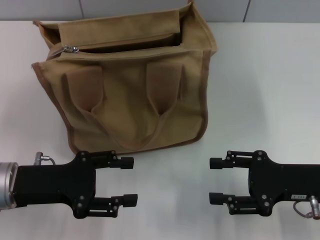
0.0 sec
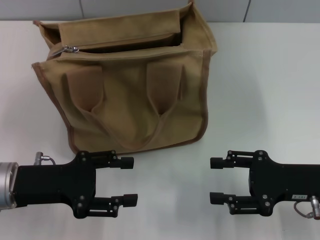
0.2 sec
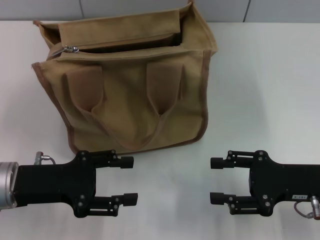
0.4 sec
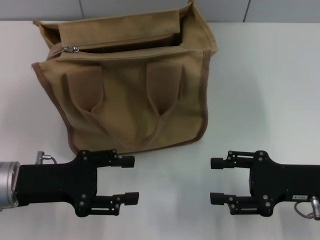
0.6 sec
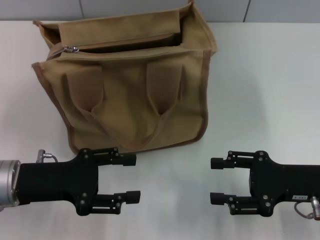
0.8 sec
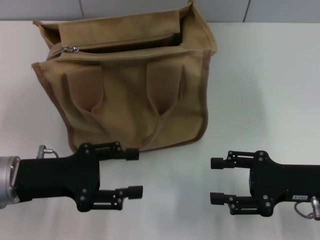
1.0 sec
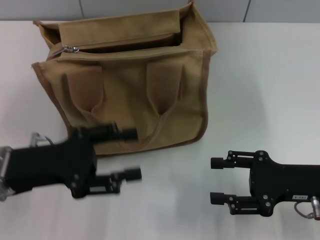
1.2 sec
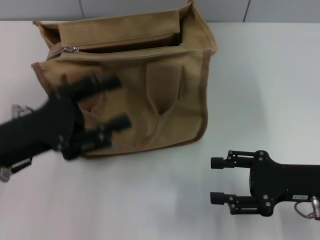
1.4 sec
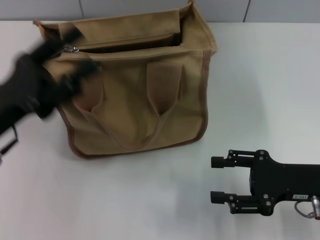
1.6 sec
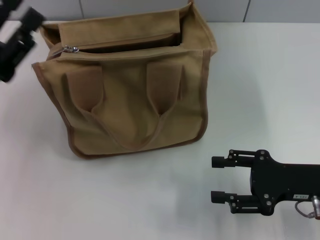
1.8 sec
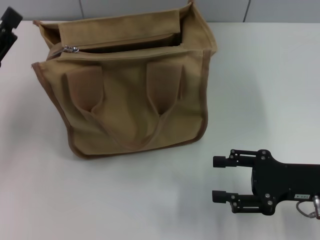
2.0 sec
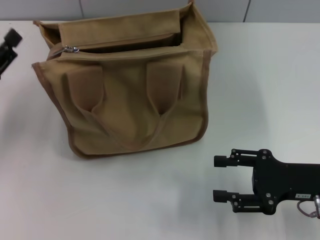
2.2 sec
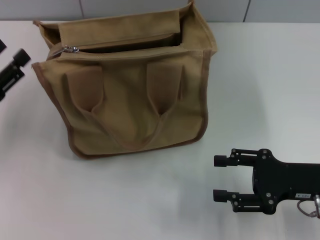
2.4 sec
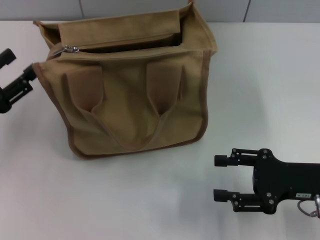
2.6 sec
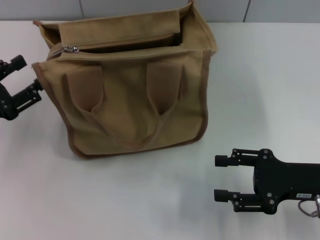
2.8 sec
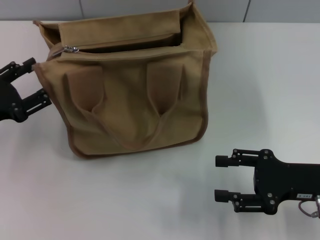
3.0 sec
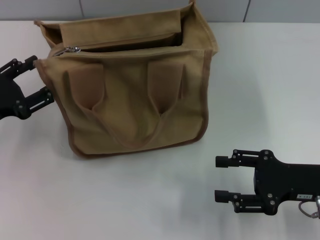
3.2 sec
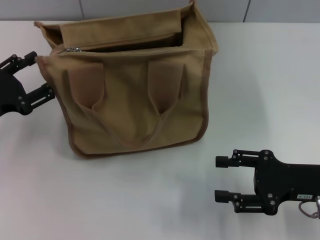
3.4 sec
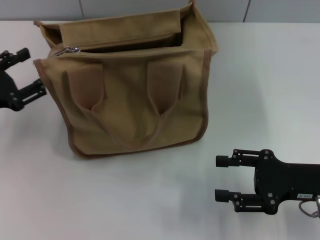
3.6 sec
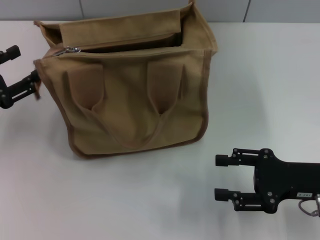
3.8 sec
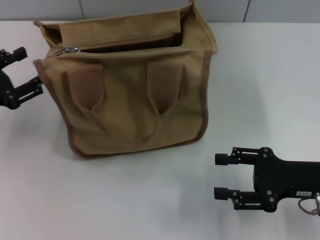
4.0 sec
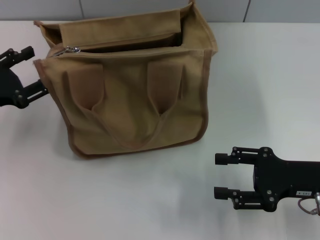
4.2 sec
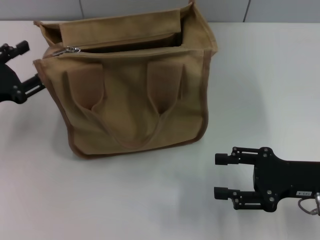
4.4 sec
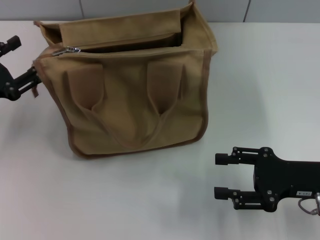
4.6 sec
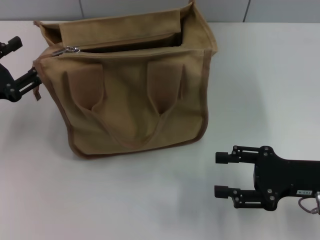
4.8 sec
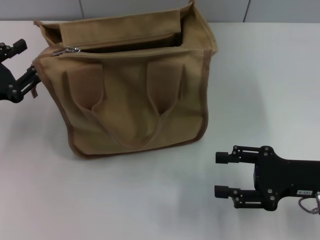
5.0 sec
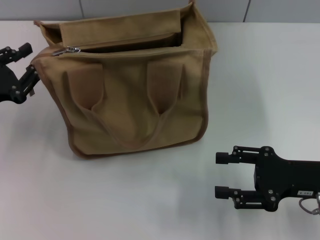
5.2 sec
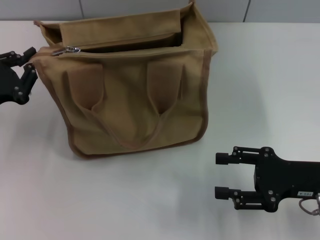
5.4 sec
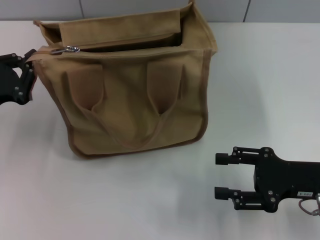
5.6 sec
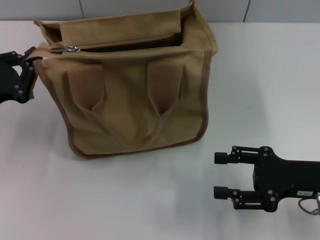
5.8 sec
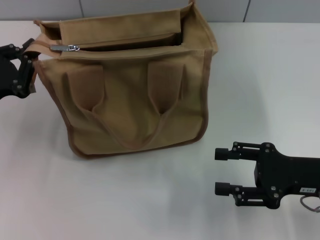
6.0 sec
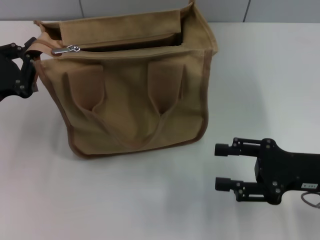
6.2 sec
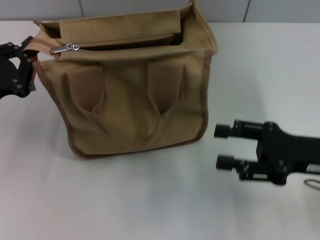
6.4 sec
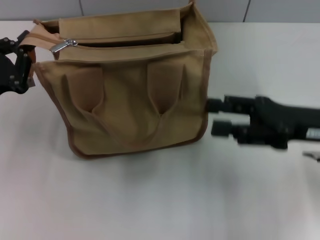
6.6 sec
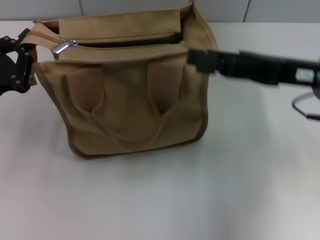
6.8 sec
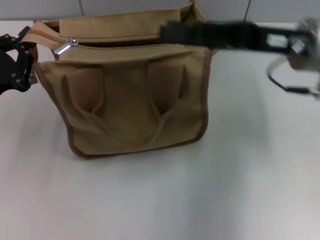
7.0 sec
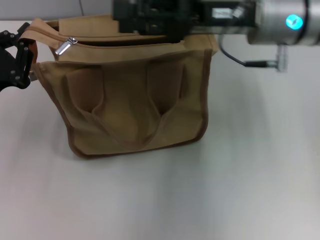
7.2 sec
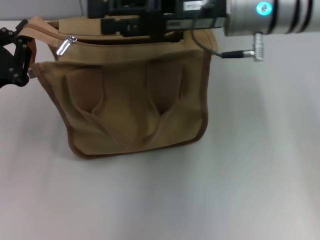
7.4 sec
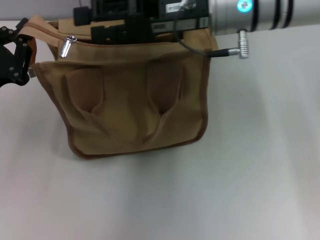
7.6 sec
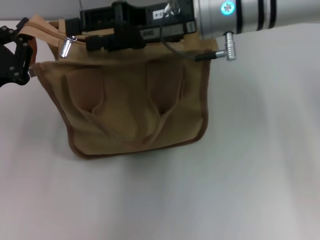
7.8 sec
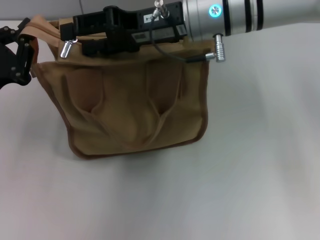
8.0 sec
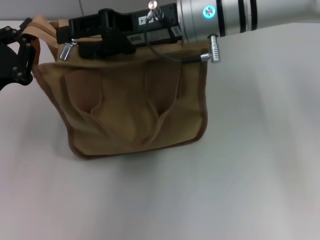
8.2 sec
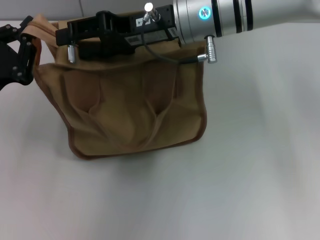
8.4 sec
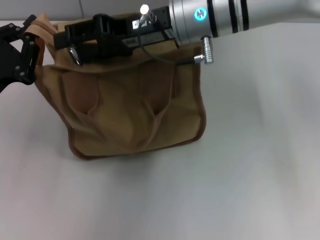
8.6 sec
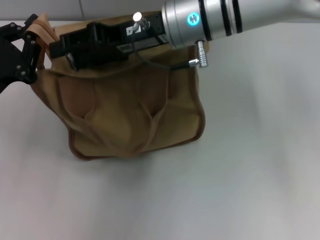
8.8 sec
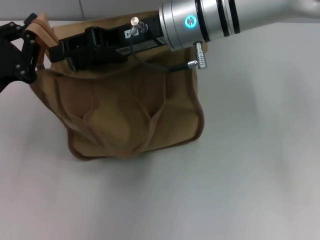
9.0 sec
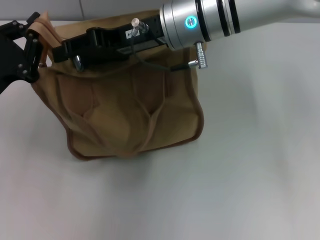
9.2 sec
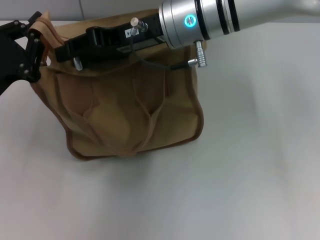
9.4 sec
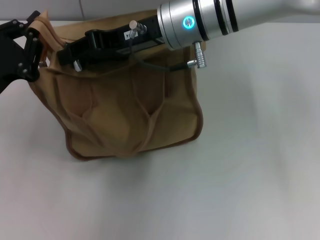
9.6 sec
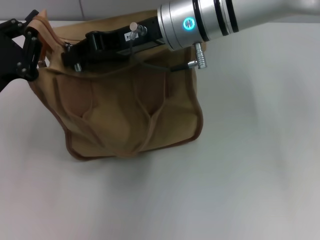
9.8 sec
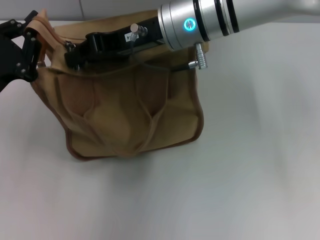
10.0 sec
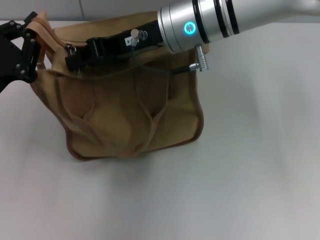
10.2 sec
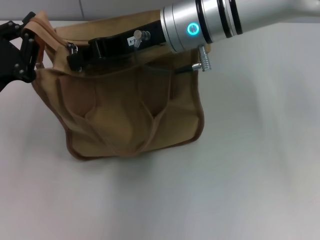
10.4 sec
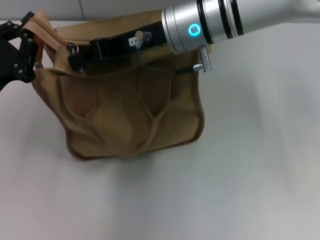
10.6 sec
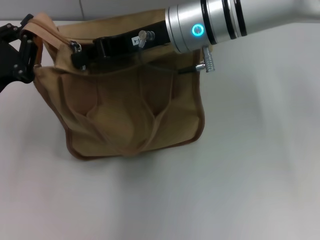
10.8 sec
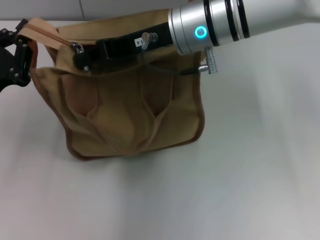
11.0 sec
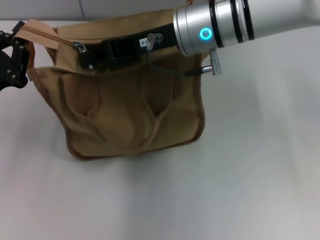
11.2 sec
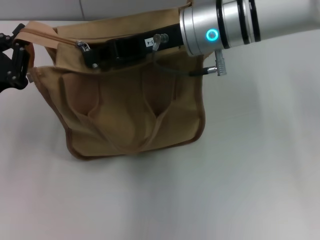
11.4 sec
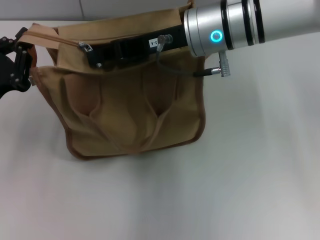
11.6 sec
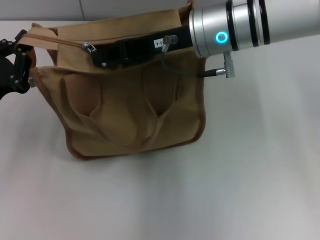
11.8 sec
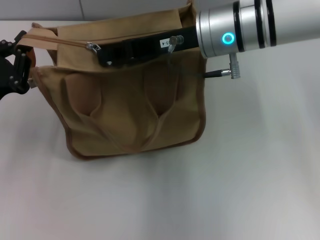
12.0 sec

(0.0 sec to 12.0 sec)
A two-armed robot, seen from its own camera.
1.6 sec - 3.0 sec: The left gripper heads to the left, covering approximately 5 cm.
3.0 sec - 4.4 sec: The grippers move only a little.
4.4 sec - 6.0 sec: The left gripper closes.
6.0 sec - 7.6 sec: The right gripper goes roughly 25 cm to the left, forward and upward.
7.6 sec - 9.0 sec: The grippers stay close to where they were, moving slightly.
9.0 sec - 10.4 sec: The right gripper closes.

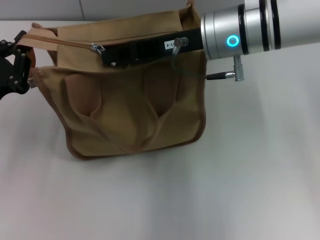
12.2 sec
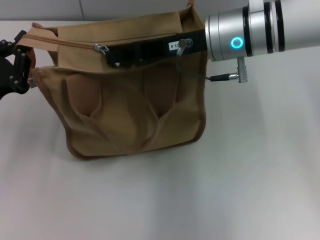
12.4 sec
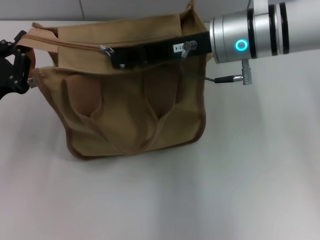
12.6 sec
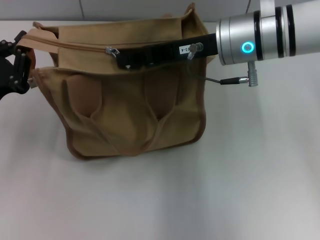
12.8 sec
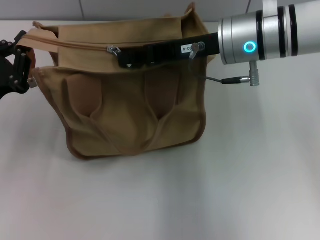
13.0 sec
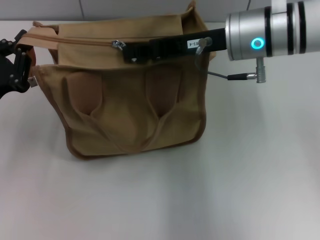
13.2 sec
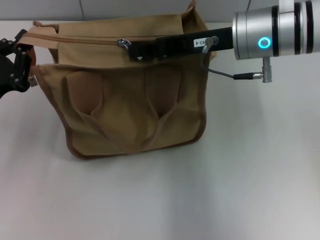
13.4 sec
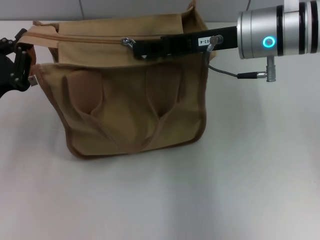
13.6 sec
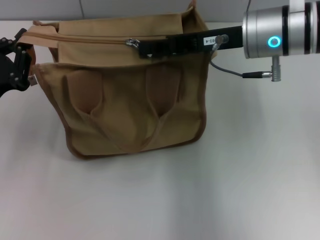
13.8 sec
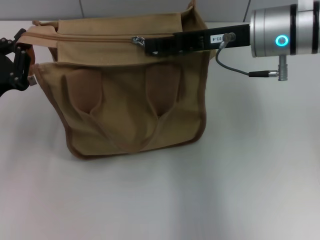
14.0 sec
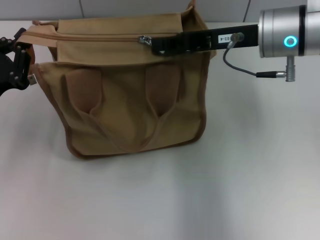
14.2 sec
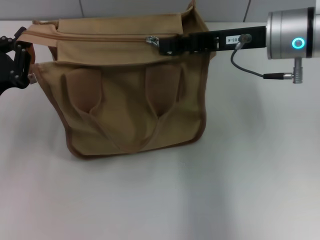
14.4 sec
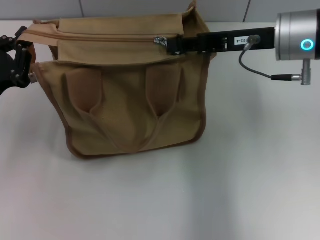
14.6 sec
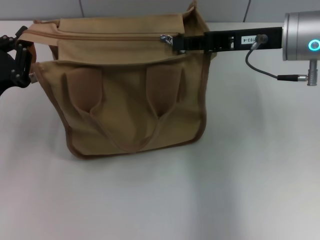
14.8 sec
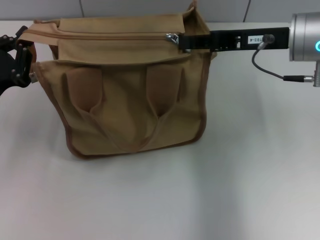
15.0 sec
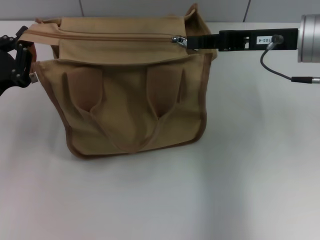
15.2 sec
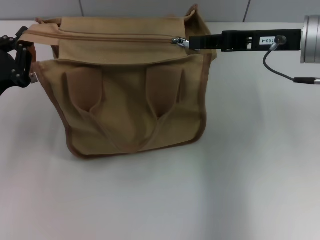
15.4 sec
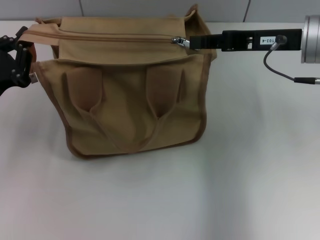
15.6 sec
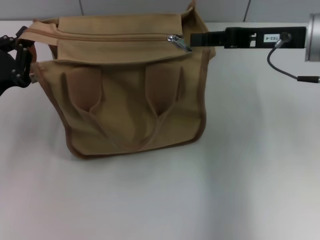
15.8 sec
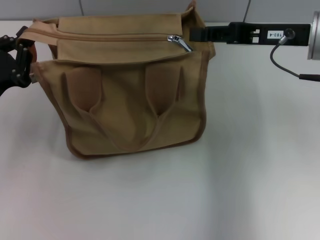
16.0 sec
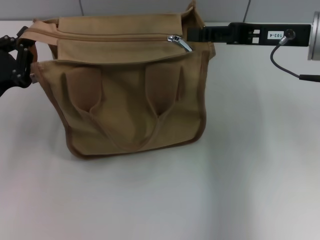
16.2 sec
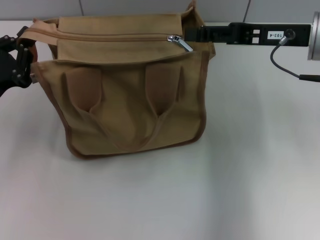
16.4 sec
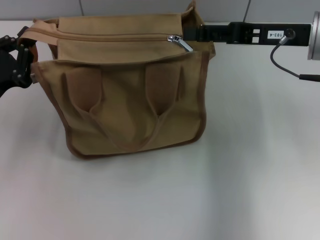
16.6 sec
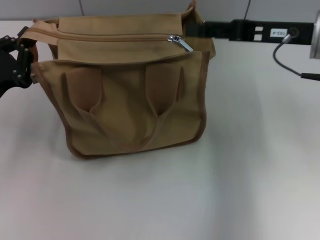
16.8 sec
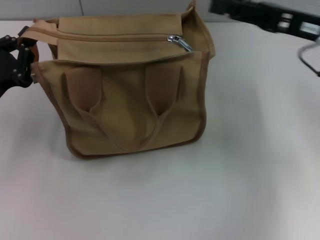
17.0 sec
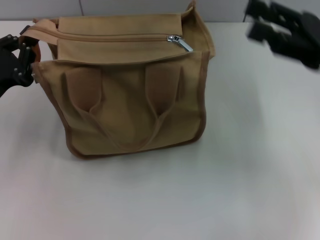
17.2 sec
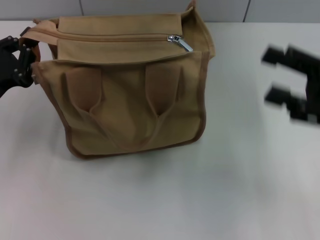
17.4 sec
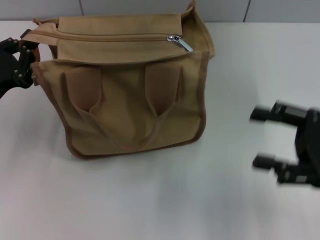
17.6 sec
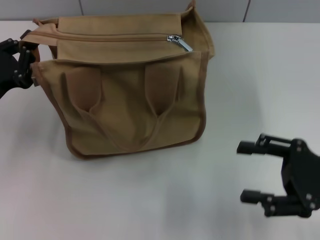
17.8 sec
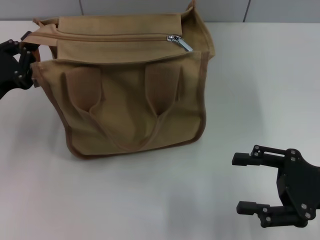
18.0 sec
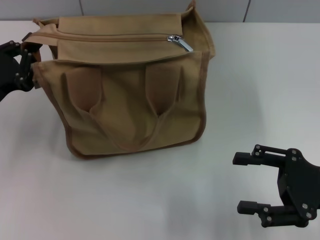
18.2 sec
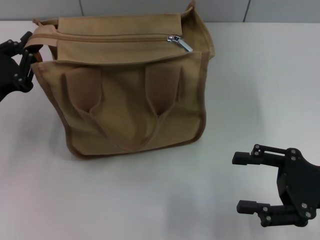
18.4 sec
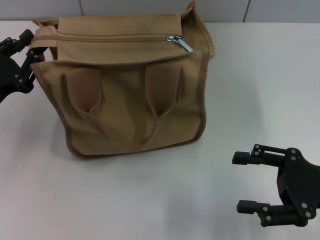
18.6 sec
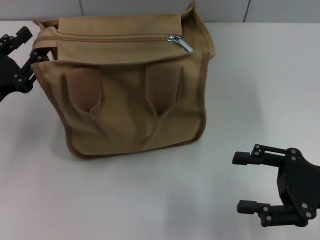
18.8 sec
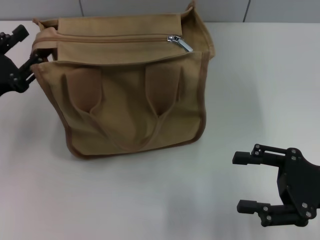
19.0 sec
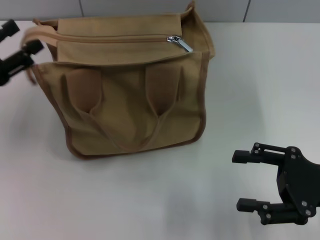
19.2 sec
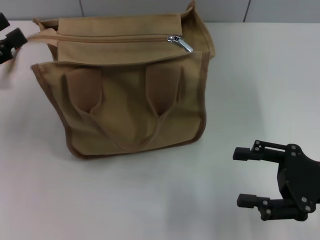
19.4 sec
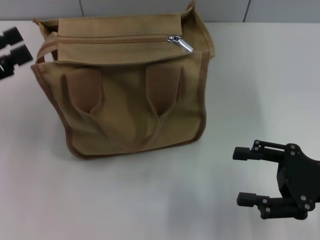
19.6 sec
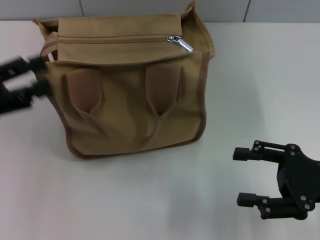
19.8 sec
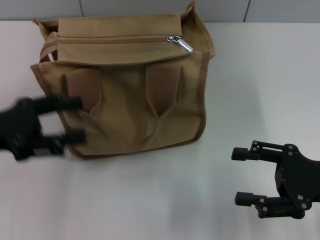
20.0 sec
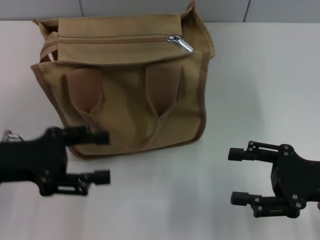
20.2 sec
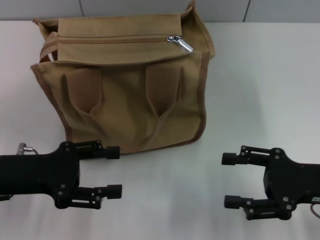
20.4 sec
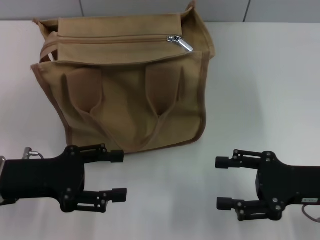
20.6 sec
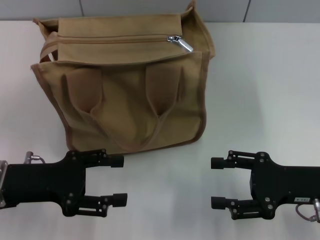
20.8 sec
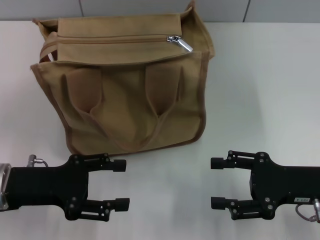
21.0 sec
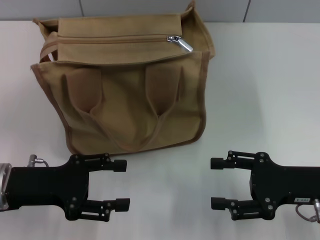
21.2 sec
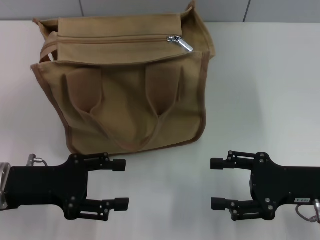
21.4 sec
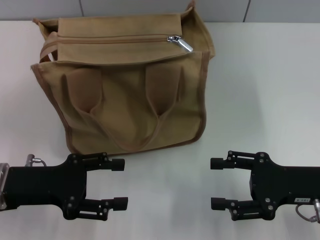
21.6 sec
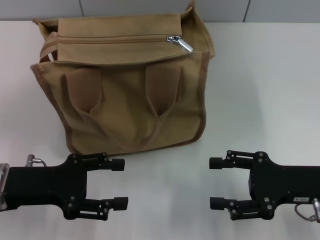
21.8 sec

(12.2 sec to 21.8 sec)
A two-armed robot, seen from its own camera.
Step, 12.2 sec - 15.6 sec: Pull up the zipper with your right hand.
Step, 15.8 sec - 19.4 sec: Grab the zipper with your left hand.
12.2 sec - 13.8 sec: The grippers stay close to where they were, moving slightly.
13.8 sec - 15.4 sec: The right gripper heads to the right, covering approximately 5 cm.
15.4 sec - 17.0 sec: The right gripper opens.
17.0 sec - 18.6 sec: The right gripper shifts approximately 15 cm backward and downward.
18.6 sec - 20.2 sec: The left gripper opens its fingers.
20.2 sec - 21.8 sec: The grippers move only a little.

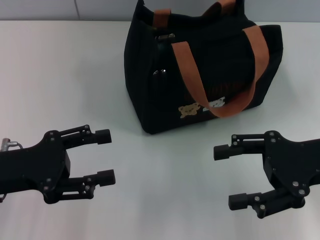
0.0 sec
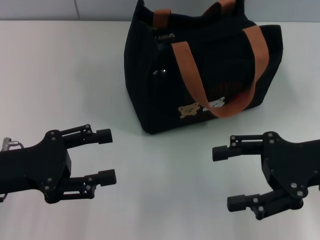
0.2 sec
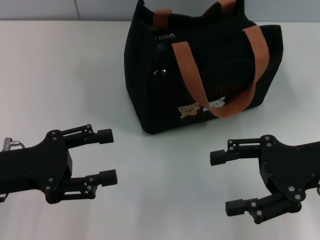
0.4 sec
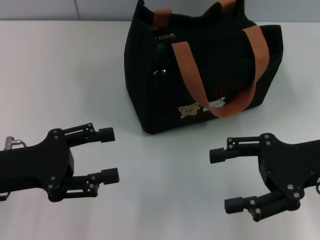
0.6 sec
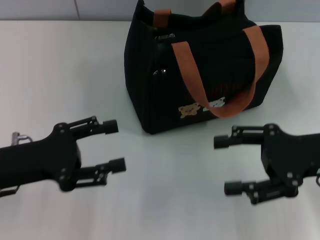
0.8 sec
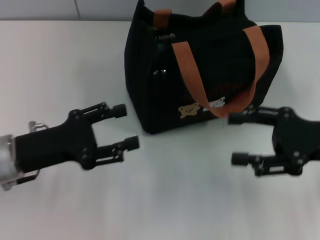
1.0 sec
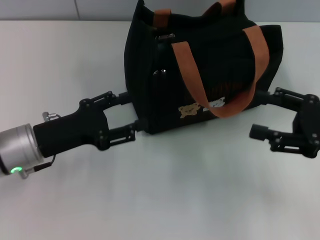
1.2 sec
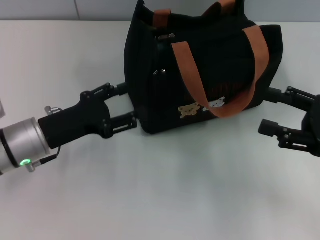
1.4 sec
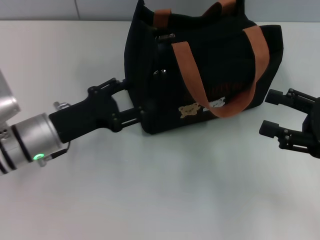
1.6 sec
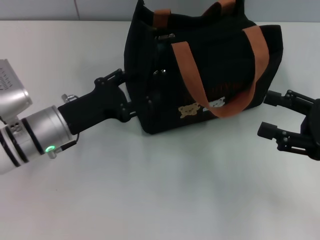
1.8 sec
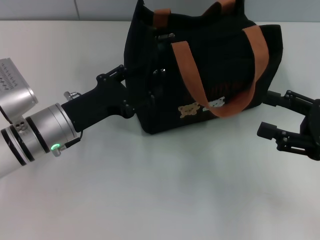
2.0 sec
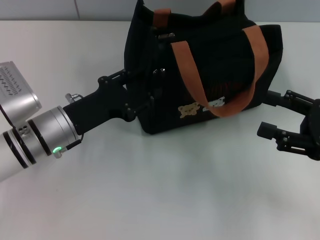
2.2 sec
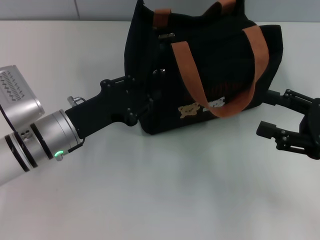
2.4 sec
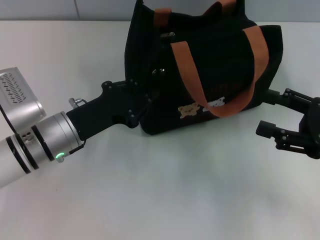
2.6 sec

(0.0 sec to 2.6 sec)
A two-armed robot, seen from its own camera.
0.0 sec - 1.2 sec: The left gripper ends up roughly 5 cm from where it was.
1.2 sec - 2.6 sec: The left gripper shifts by approximately 5 cm, and closes its fingers.
